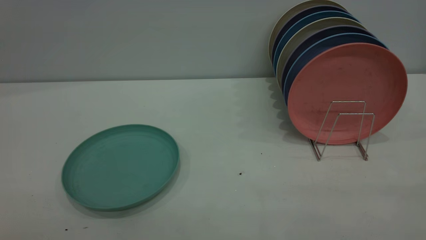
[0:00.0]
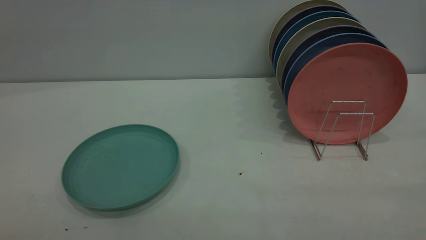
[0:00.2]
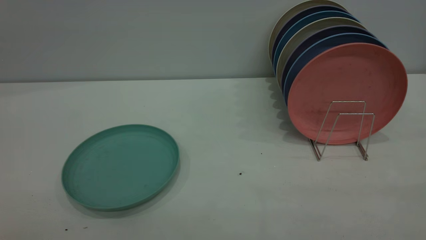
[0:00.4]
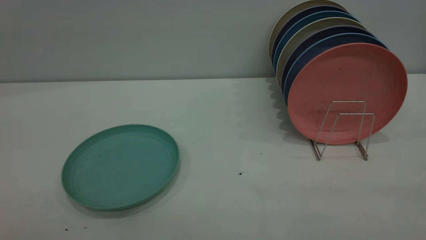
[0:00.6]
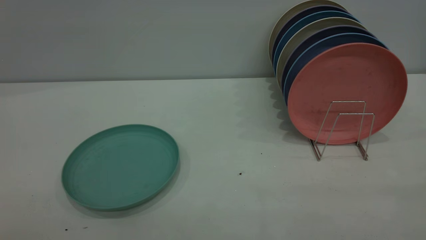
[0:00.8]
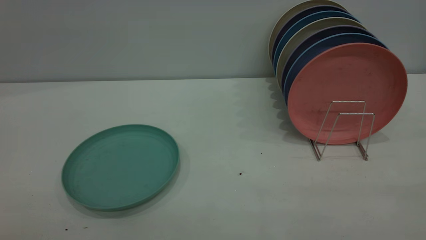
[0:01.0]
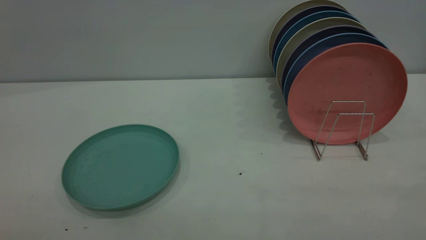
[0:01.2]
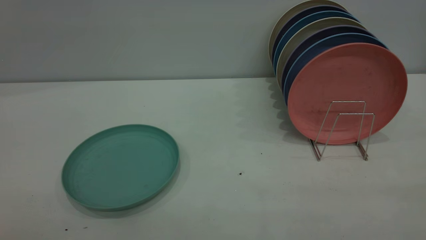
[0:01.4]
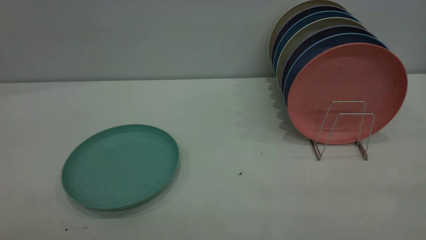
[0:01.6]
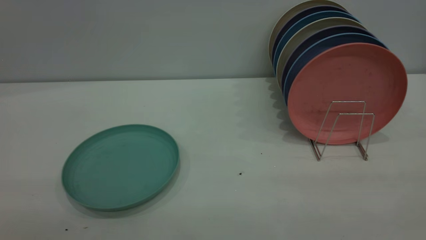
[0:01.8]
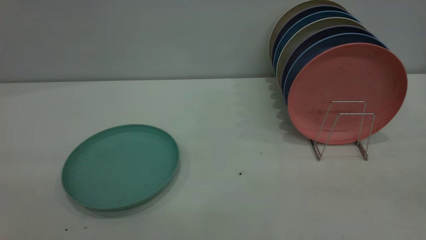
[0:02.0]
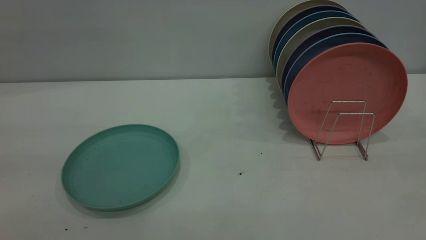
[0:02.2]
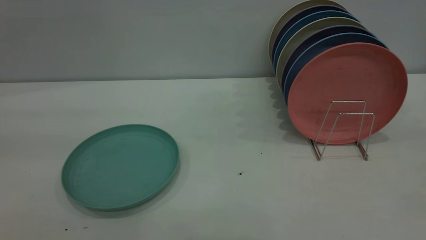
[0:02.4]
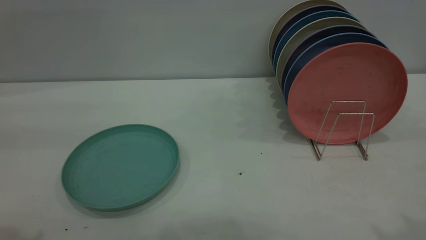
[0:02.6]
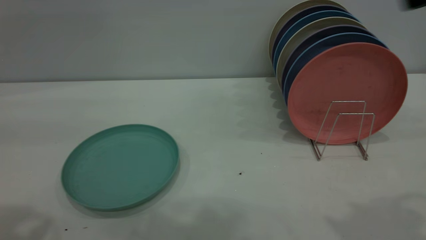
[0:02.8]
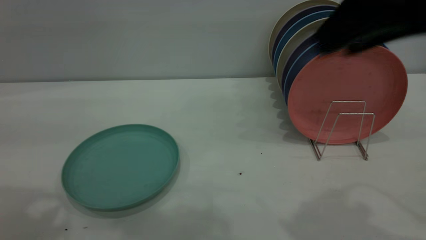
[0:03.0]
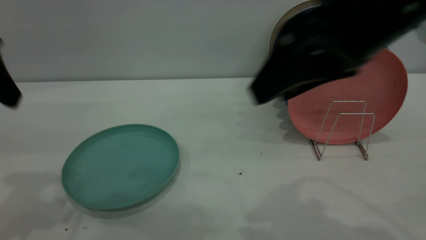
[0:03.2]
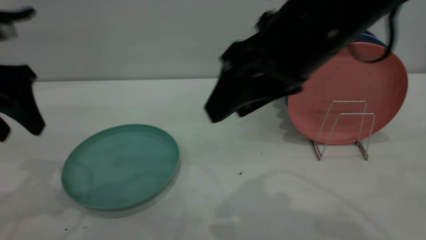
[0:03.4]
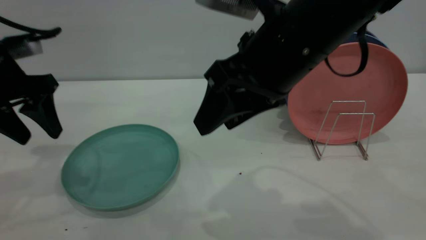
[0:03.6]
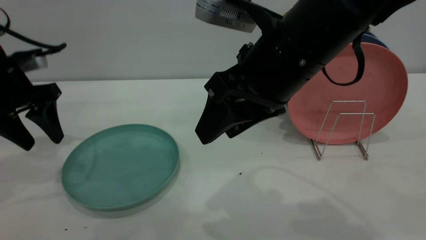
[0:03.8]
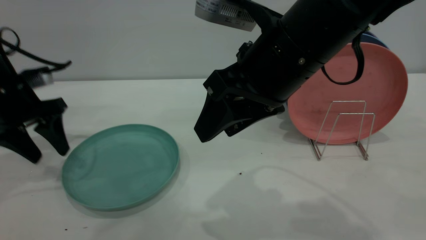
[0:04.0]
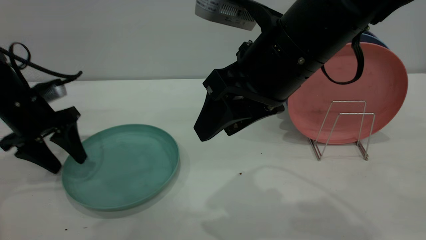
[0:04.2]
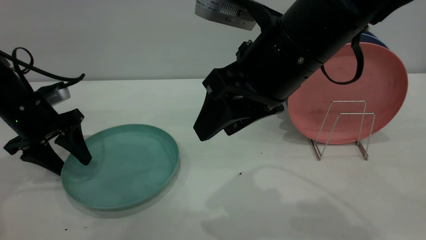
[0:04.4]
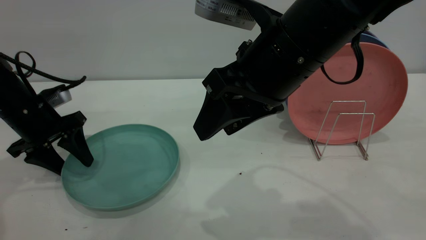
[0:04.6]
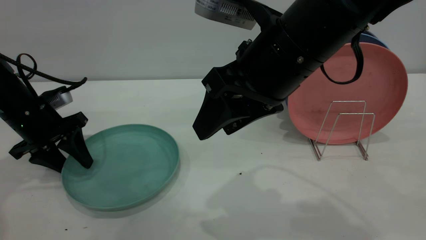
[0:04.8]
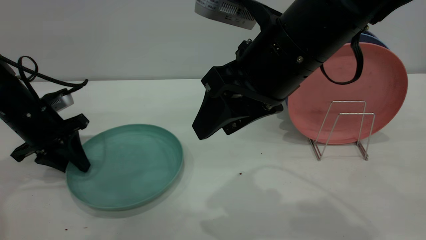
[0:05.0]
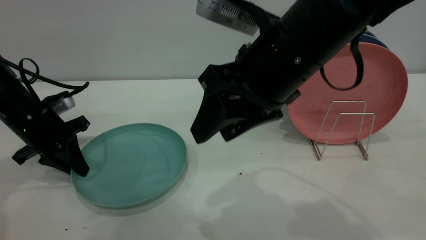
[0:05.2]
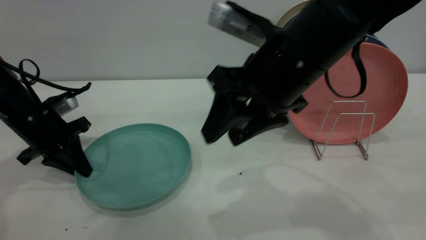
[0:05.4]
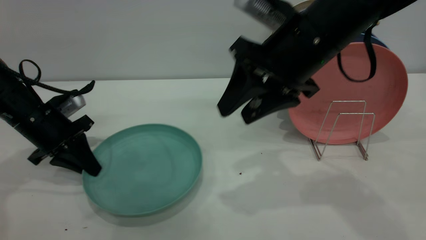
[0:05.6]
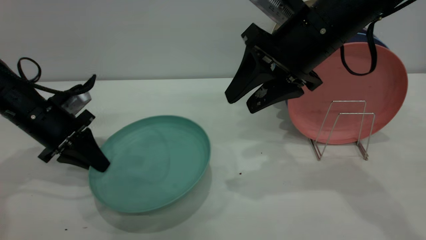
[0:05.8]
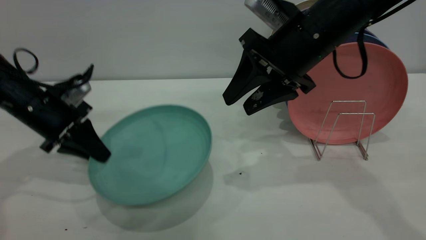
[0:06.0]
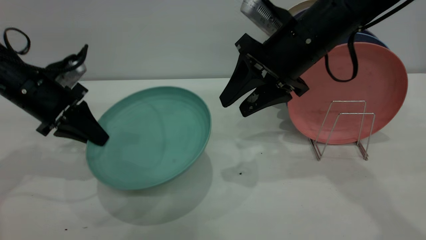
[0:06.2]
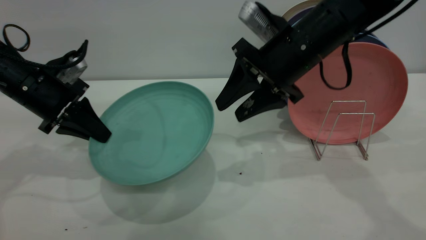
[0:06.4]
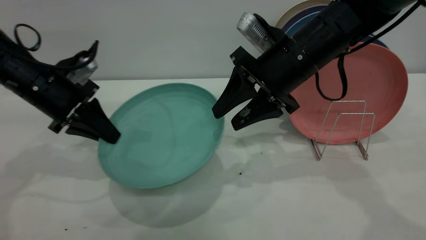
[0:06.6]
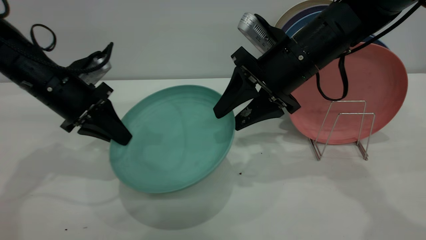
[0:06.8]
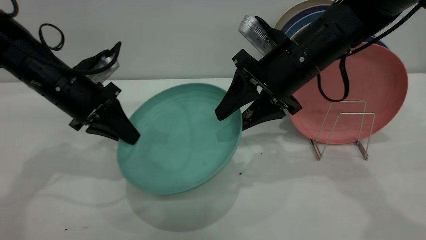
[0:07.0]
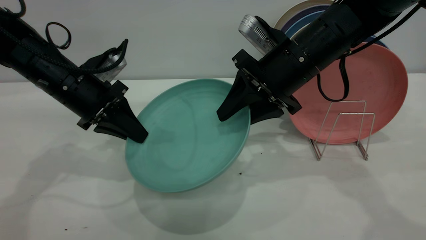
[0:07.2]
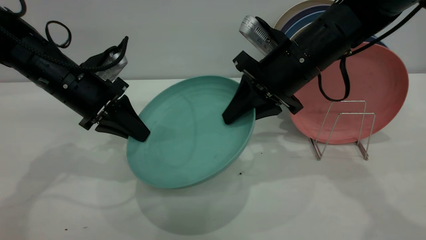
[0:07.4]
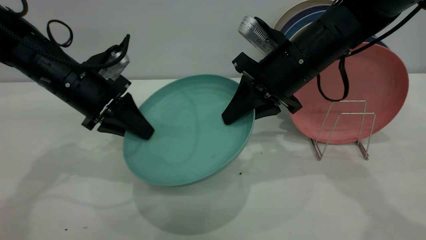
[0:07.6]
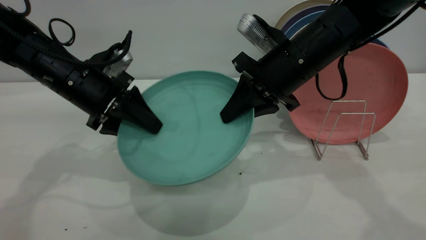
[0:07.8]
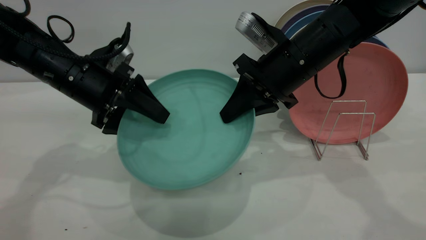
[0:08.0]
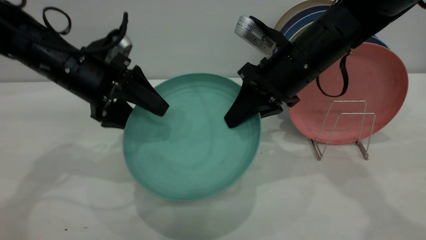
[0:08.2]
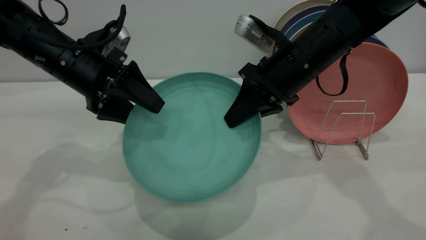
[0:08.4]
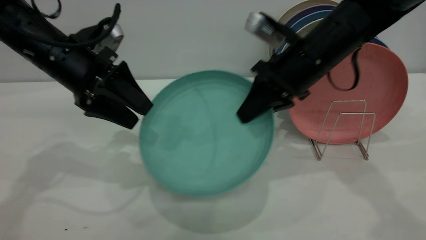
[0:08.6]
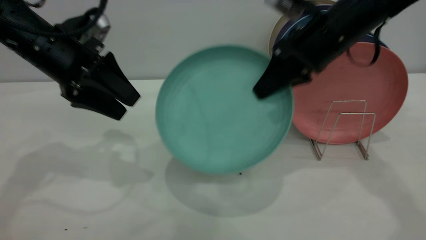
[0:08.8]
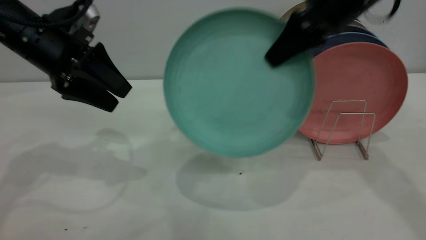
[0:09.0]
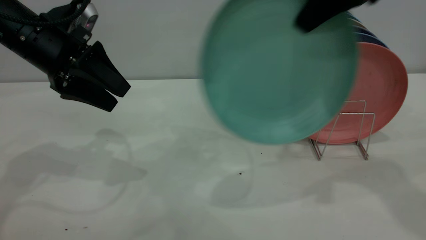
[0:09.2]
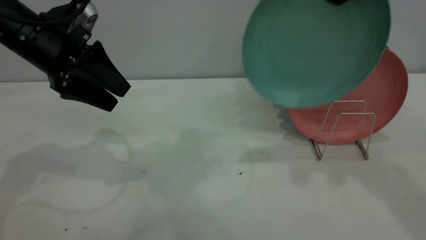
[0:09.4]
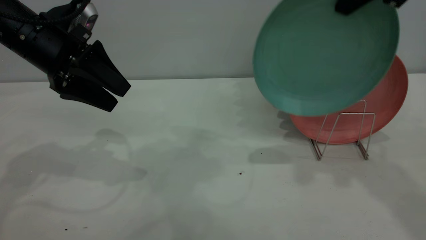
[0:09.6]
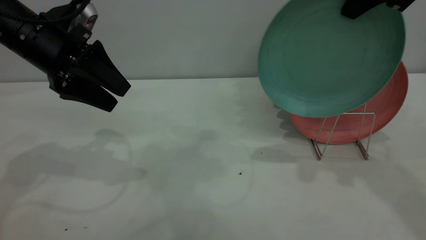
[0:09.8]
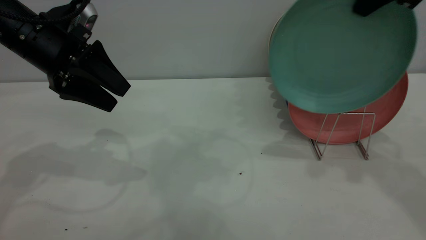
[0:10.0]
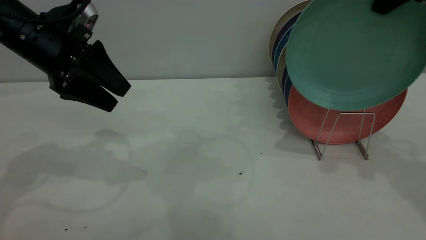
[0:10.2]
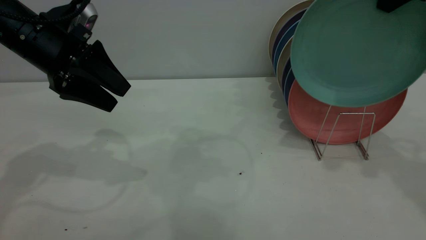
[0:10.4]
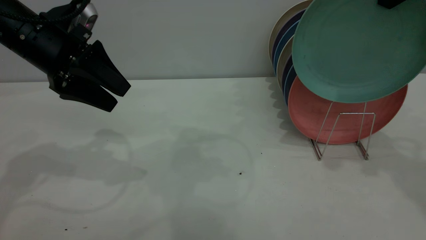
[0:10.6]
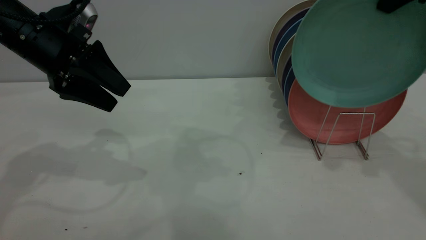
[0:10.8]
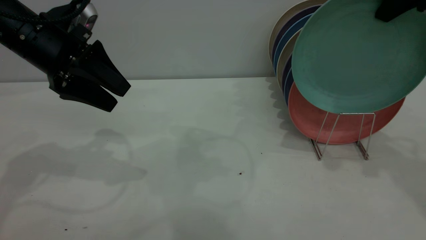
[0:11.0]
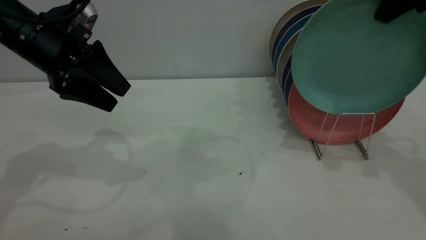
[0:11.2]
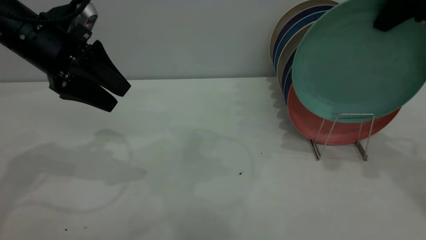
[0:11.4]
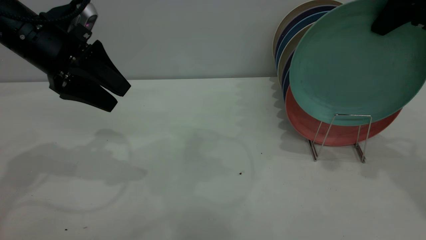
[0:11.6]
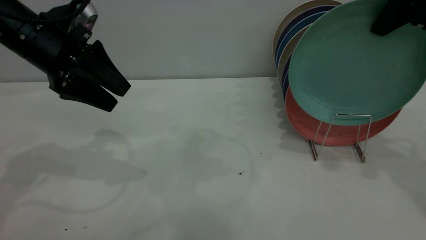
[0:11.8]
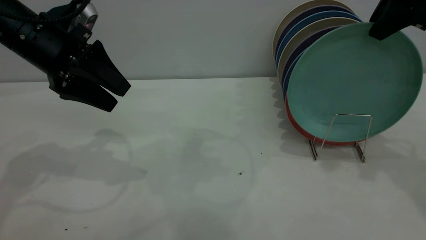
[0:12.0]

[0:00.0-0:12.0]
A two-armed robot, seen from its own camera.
Task of the whole recording: the left gripper grasp the green plate, the left gripper pass the green plate to the right gripper, and the right gripper place the green plate on the plate rack.
Step, 0:00.0 to 0:05.8: Pick up the plate with the left gripper.
Step, 0:06.0 to 0:08.8: Pass the plate from the left gripper to the right gripper.
0:00.0 to 0:01.6: The two grippers keep their place.
0:01.6 to 0:03.0: The right gripper shifts some 30 cm forward and to the left.
0:03.0 to 0:04.4: The right gripper travels to the left and downward by roughly 10 cm, while the left gripper goes approximately 25 cm downward and forward.
0:04.4 to 0:06.0: The right gripper heads forward, covering roughly 10 cm. The left gripper closes.
0:06.0 to 0:07.6: The right gripper closes its fingers. Meanwhile the left gripper goes approximately 10 cm to the right.
0:07.6 to 0:09.0: The left gripper travels upward by approximately 5 cm, and opens its fingers. The right gripper shifts approximately 15 cm upward and to the right.
0:09.0 to 0:10.4: The right gripper moves to the right, approximately 10 cm.
0:10.4 to 0:12.0: The right gripper opens its fingers.

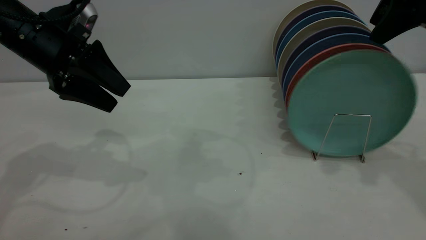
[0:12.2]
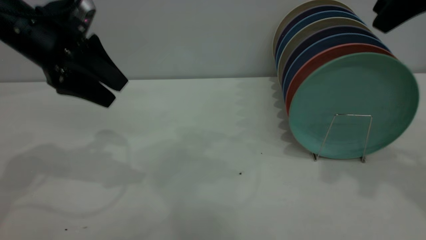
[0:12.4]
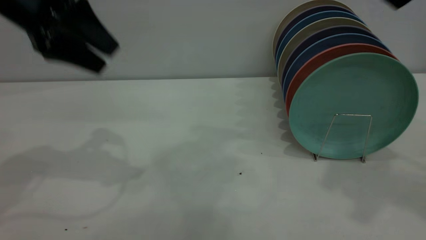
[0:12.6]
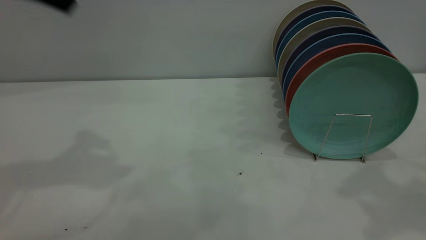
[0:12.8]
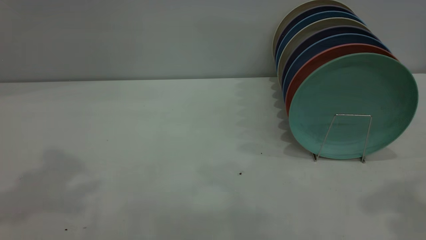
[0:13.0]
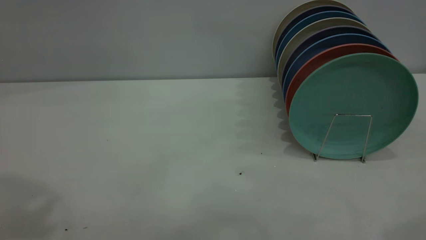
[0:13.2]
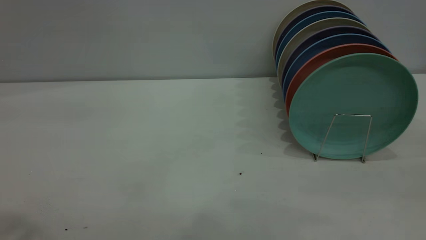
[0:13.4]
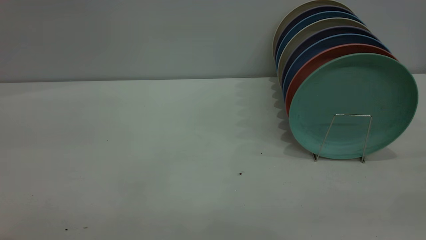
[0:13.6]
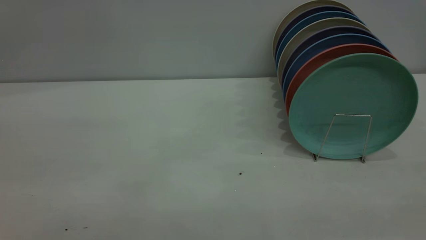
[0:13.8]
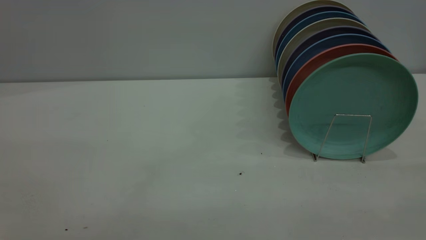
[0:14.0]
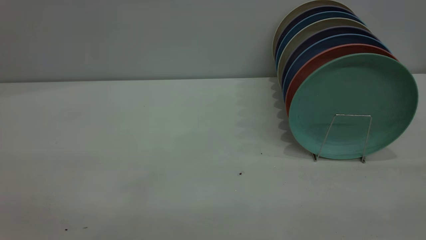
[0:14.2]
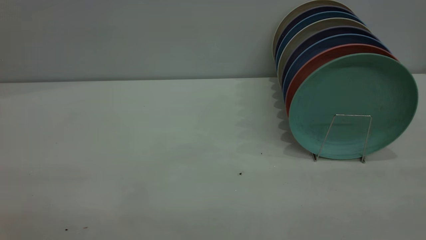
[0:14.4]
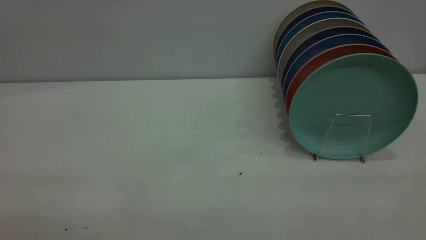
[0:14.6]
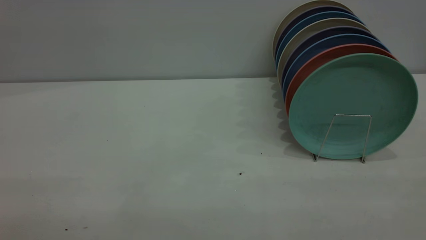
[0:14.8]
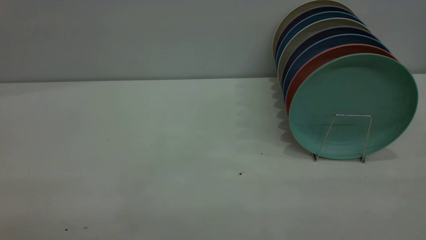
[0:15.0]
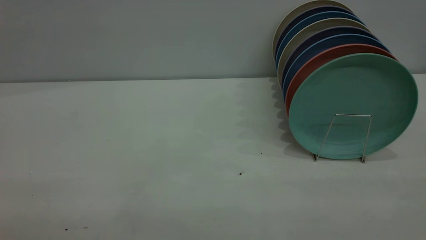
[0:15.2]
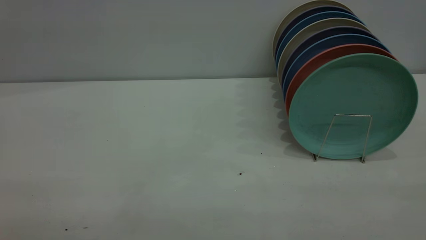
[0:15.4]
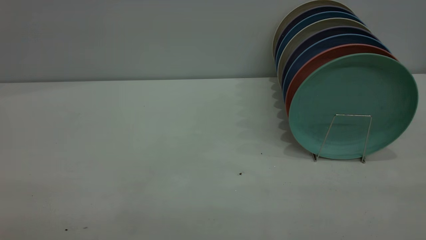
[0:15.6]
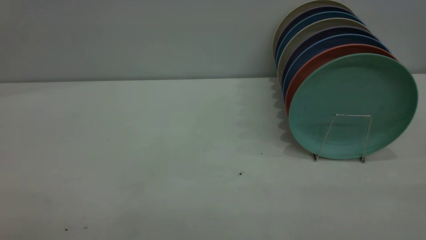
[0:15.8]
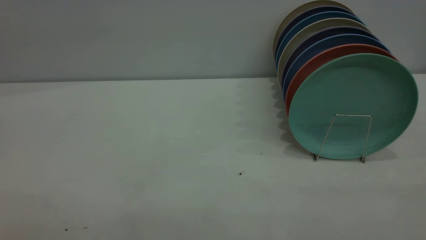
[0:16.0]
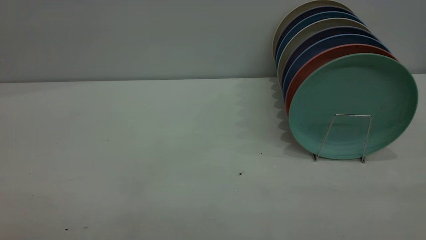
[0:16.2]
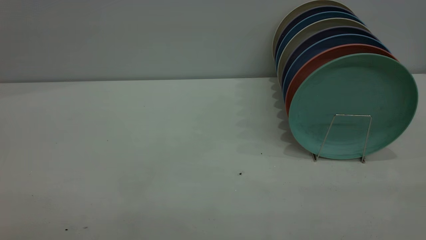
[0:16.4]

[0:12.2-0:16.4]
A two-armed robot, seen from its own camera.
Task of the whole recording: the left gripper grasp the green plate, the left gripper pass the green plate to the right gripper, and the right gripper place the green plate on the plate rack.
0:12.2 to 0:13.6: The right gripper heads backward, covering about 30 cm. Meanwhile the left gripper shifts roughly 35 cm backward and upward.
